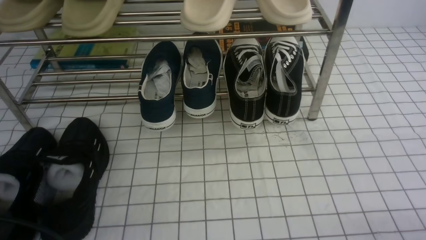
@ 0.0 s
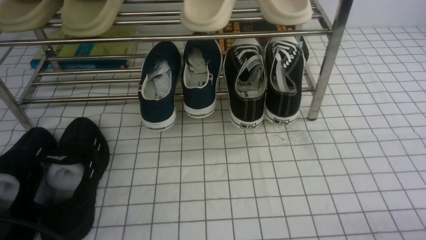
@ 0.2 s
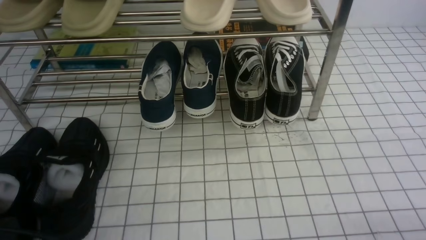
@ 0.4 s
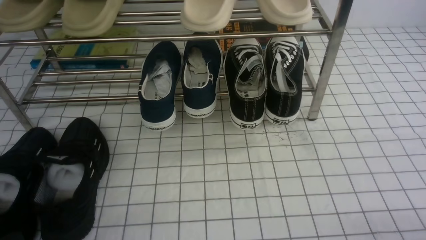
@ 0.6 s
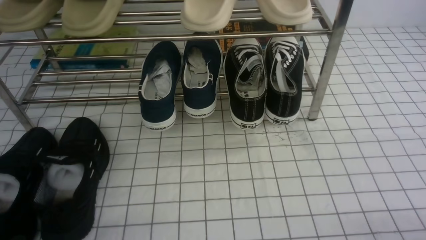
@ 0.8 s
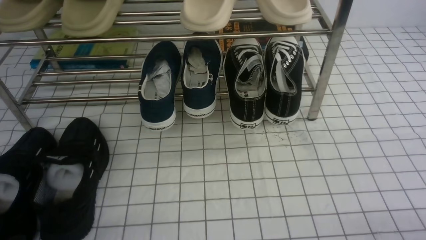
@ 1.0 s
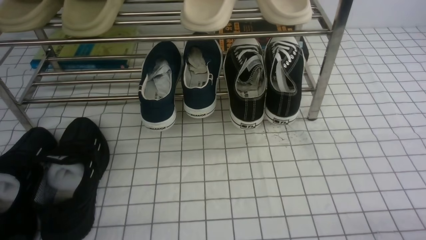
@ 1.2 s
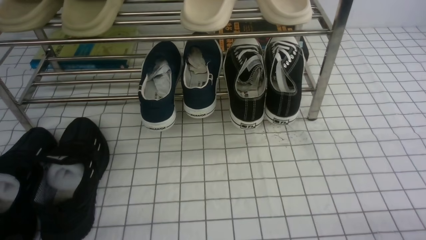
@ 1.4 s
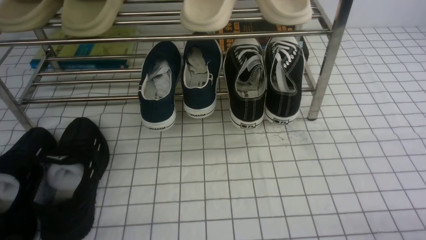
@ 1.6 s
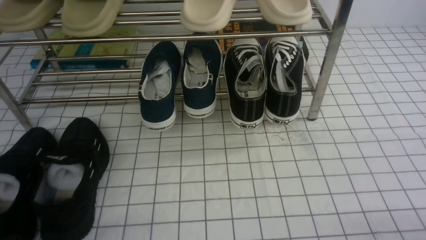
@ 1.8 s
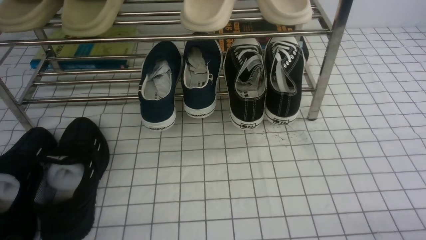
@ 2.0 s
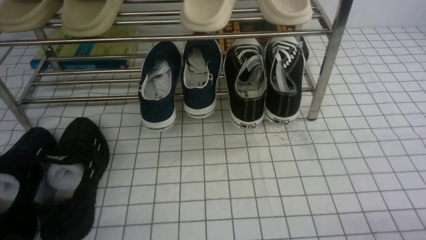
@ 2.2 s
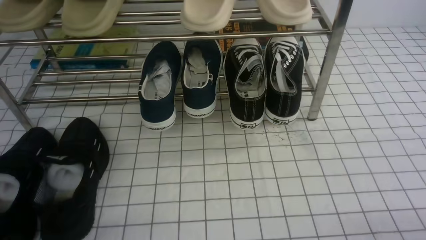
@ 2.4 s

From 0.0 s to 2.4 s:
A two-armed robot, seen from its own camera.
From 1.2 s to 2.4 s: Both grippers stay about where they are.

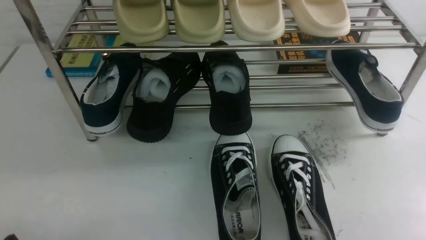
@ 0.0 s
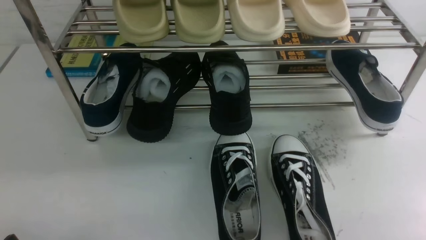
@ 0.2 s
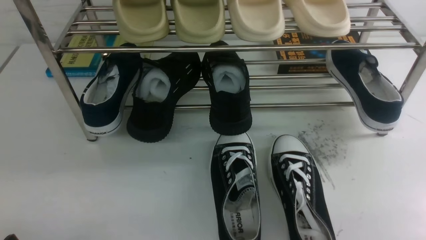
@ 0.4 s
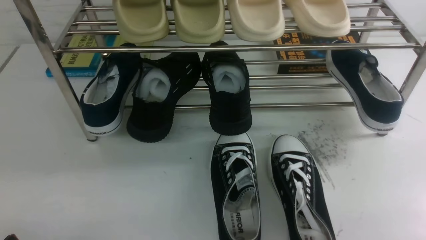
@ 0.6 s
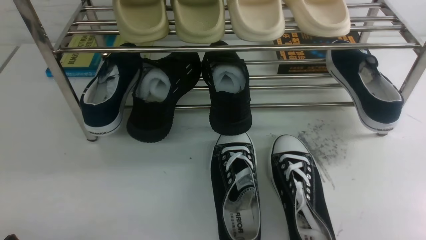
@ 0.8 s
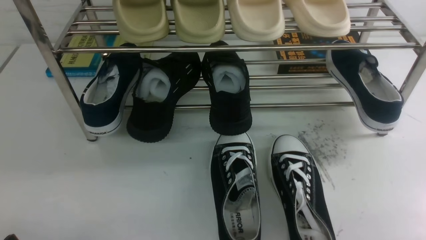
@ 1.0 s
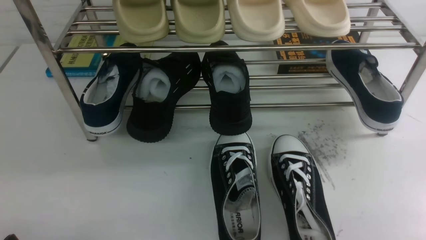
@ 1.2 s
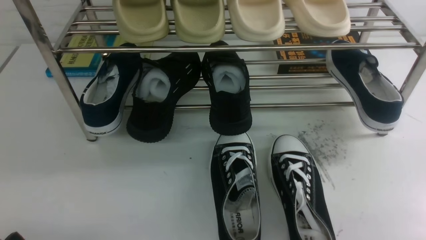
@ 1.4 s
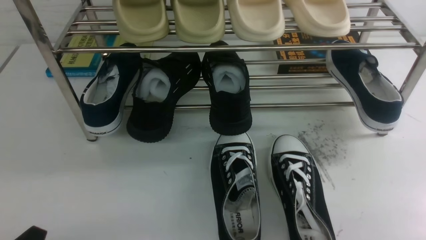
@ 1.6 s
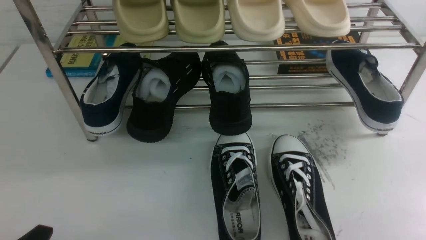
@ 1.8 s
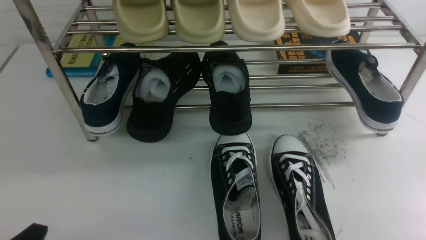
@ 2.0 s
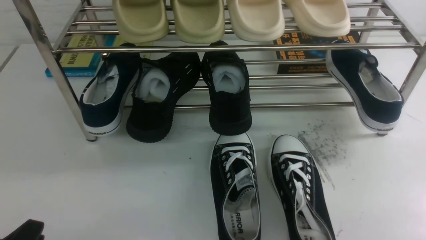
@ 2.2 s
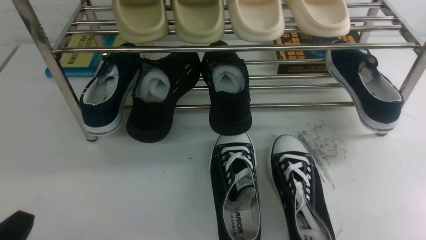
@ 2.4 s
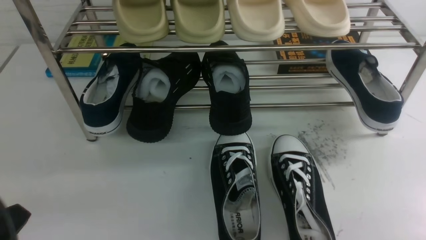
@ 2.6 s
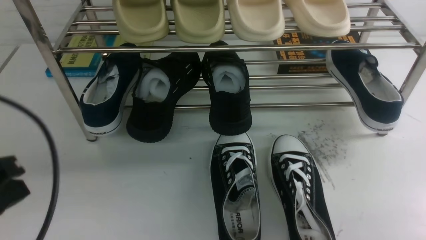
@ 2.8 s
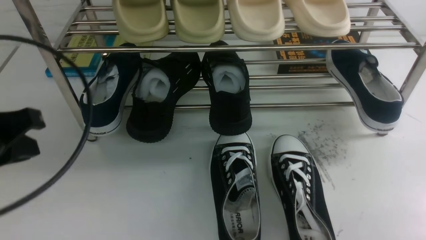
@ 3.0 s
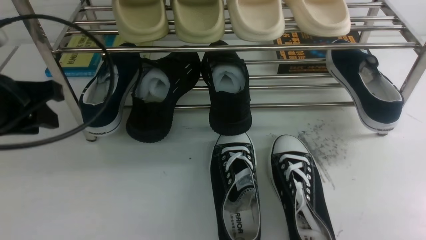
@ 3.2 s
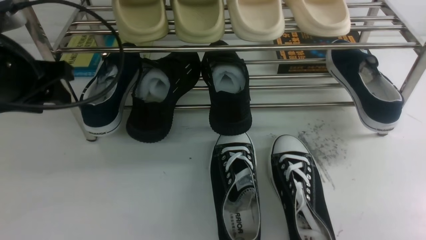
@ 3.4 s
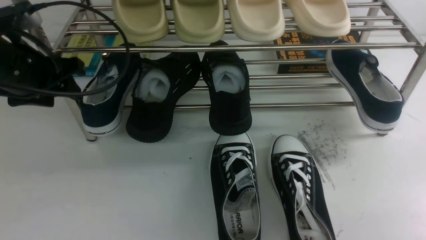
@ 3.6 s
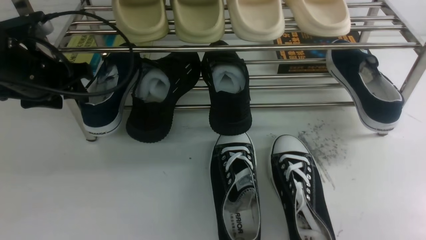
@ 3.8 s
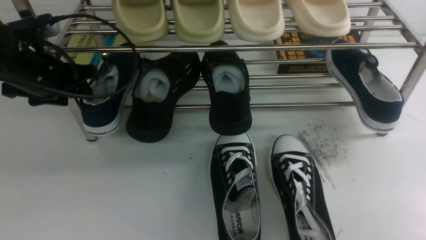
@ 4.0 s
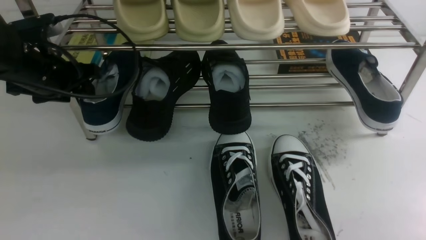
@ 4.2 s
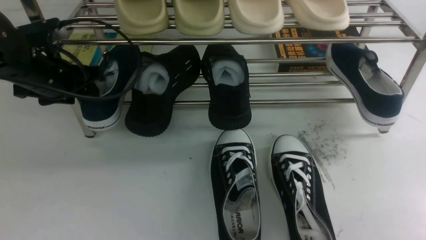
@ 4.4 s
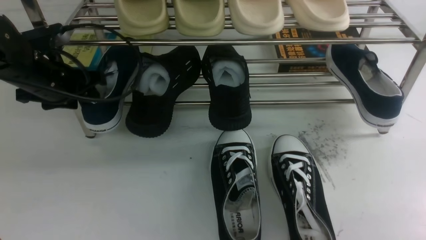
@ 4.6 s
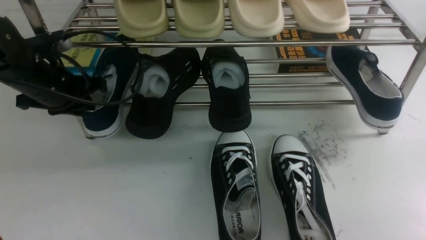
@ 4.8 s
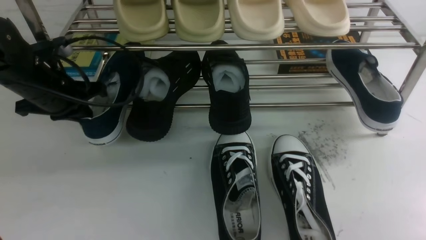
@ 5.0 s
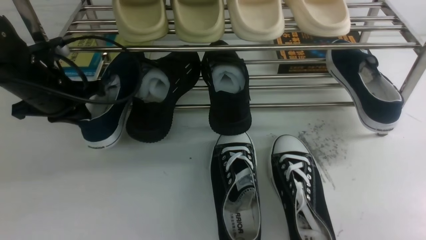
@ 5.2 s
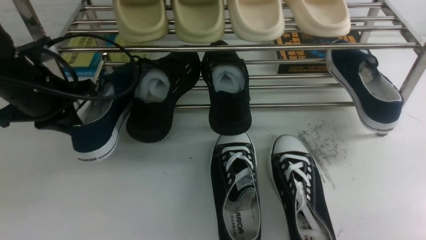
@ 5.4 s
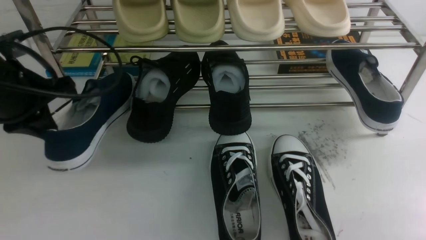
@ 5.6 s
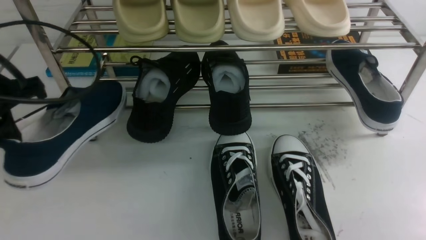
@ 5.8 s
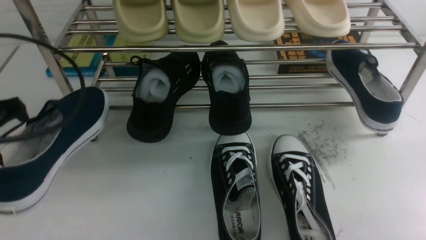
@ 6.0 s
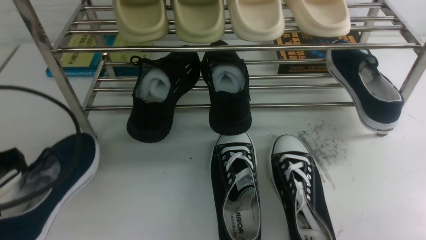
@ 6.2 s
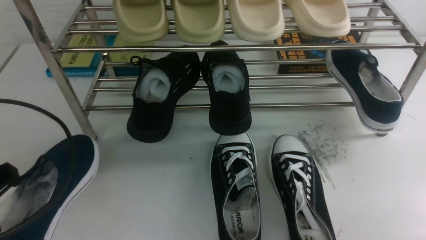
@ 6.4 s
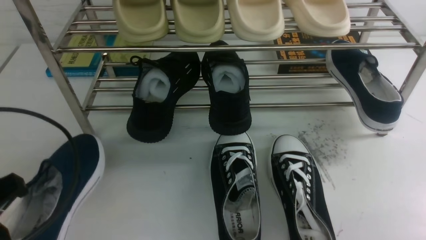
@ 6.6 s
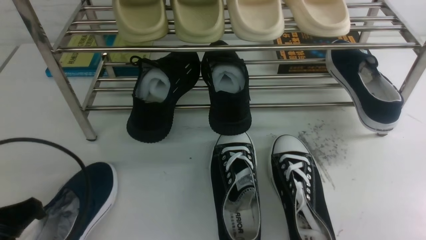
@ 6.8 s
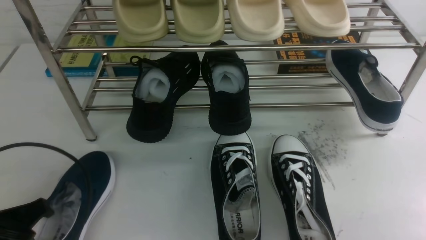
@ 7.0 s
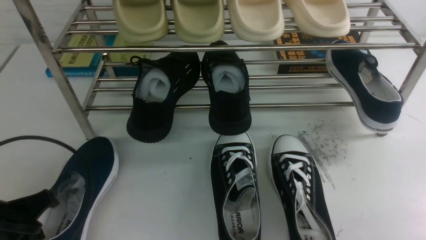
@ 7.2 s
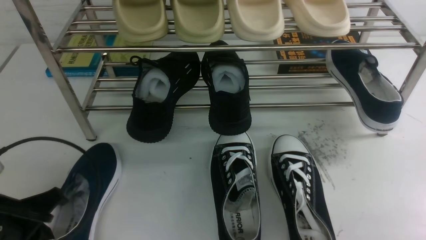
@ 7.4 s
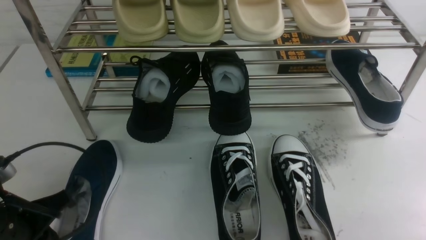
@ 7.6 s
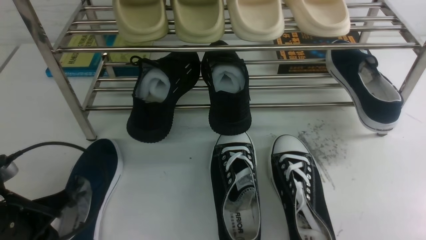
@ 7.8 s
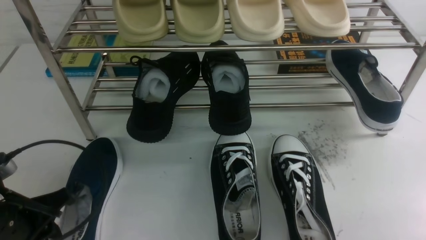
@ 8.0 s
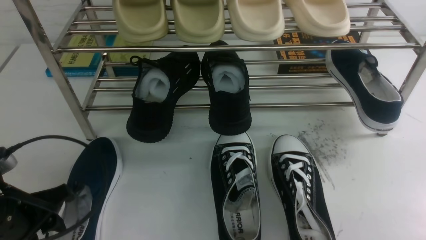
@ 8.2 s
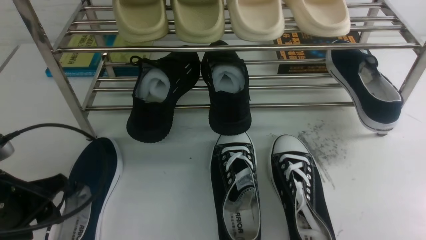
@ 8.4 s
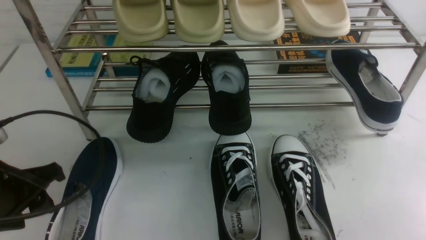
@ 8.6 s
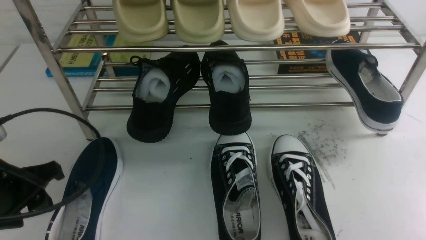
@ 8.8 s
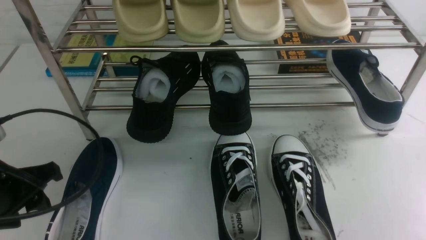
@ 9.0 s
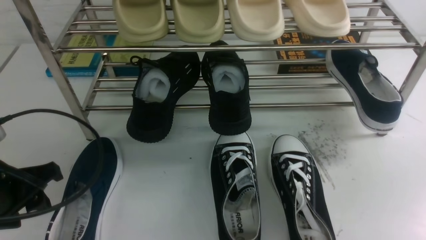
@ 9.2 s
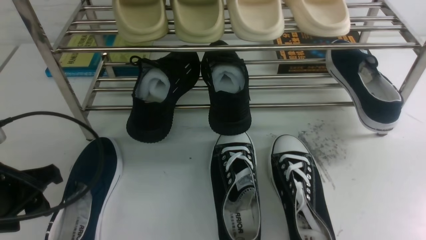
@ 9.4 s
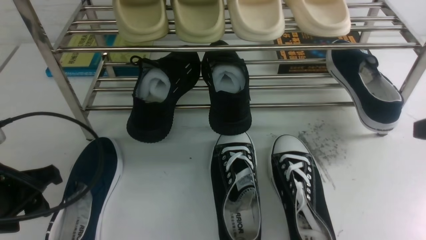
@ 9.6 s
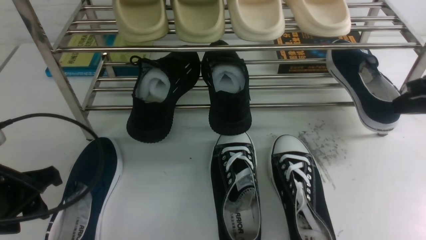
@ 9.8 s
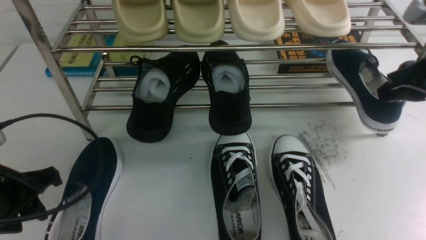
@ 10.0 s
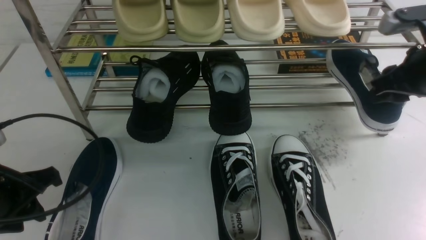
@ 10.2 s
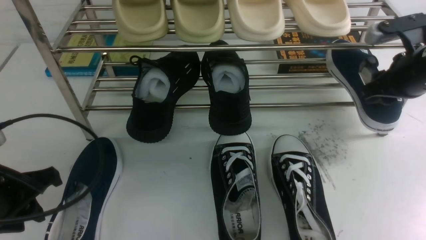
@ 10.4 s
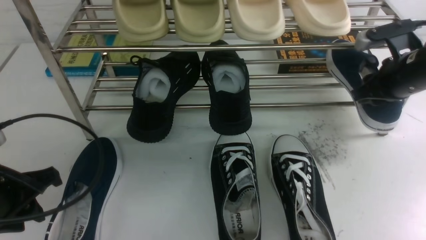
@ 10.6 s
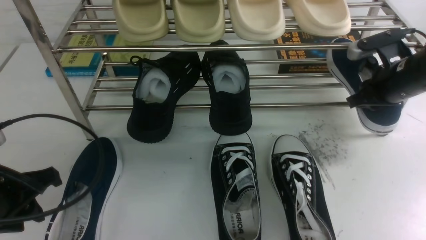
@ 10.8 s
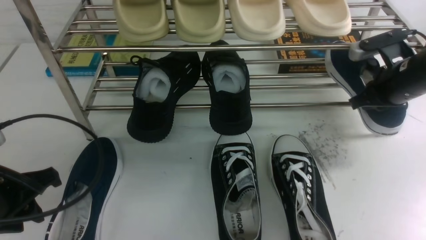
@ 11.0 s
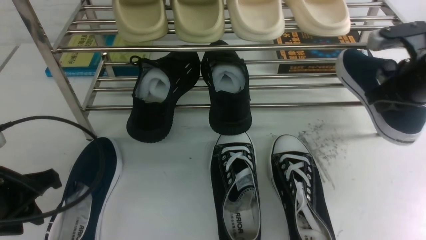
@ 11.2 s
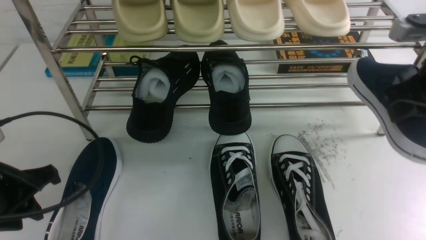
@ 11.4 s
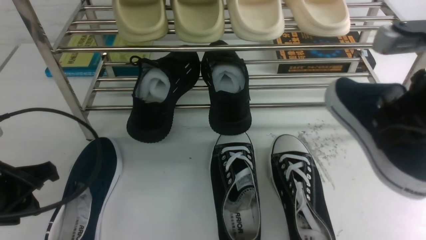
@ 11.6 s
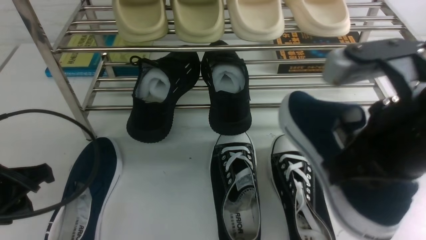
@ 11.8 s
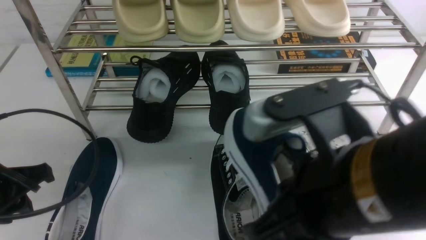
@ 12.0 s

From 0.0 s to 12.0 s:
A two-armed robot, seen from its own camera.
Step, from 0.0 s to 5.4 s: use the left arm to clamp a shoe on the left side of the shoe rack.
Step, from 5.6 s to 8.6 s: Use your left arm to remove the clamped shoe from the shoe rack and put it down.
Step, from 8.8 s to 11.2 s: use the right arm to clamp a shoe on the right side of the shoe rack.
From 1.6 s to 3.0 s: The left gripper shifts roughly 20 cm upward and forward.
From 3.0 s to 4.4 s: The left gripper is displaced forward by approximately 20 cm, and opens up.
From 4.4 s to 6.0 s: The left gripper goes roughly 20 cm backward and upward, and closes up.
From 6.0 s to 7.6 s: The left gripper shifts about 15 cm downward.
From 7.6 s to 9.0 s: The left gripper opens up.
From 9.0 s to 10.4 s: The right gripper heads forward, covering some 30 cm, and closes, then opens again.
From 10.4 s to 12.0 s: The right gripper goes some 30 cm backward and to the left, and closes up.

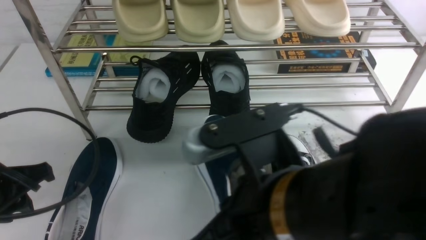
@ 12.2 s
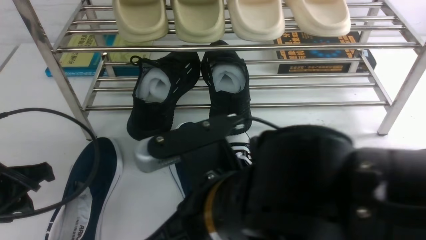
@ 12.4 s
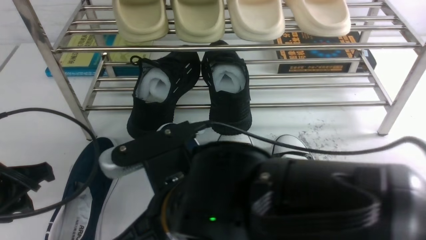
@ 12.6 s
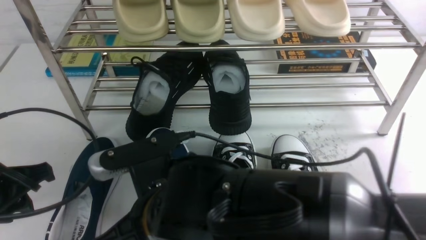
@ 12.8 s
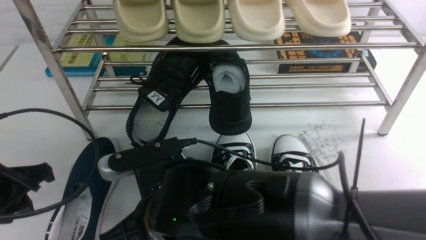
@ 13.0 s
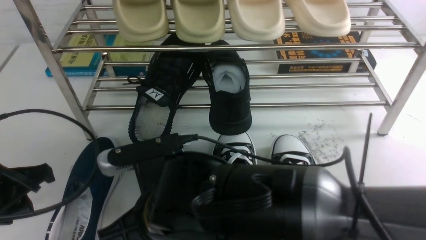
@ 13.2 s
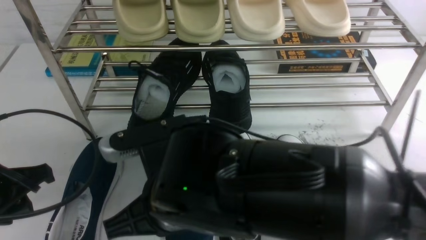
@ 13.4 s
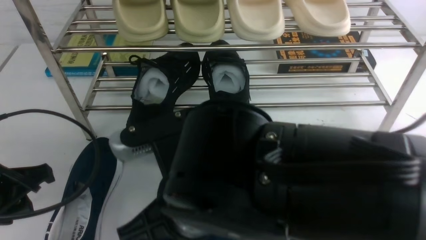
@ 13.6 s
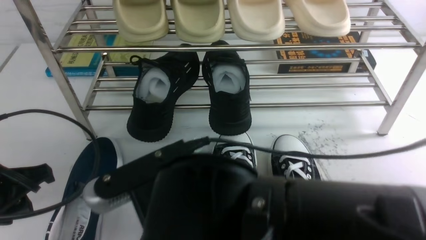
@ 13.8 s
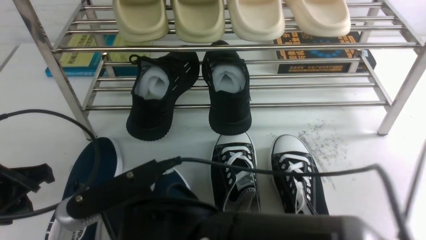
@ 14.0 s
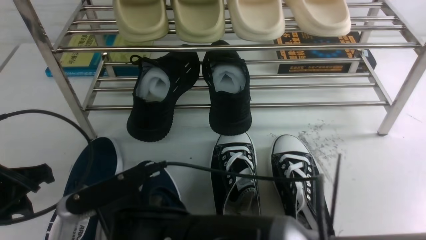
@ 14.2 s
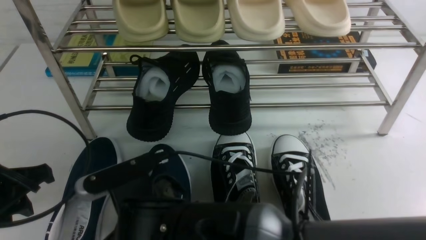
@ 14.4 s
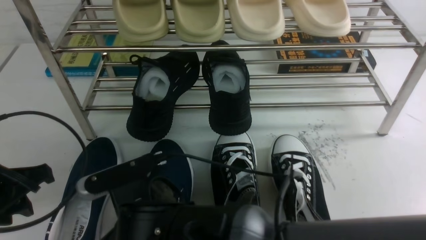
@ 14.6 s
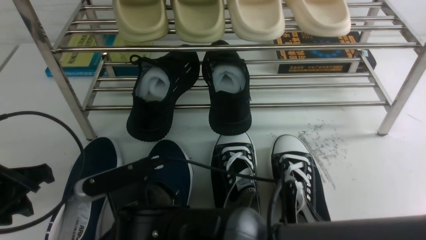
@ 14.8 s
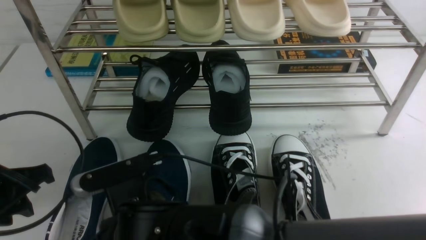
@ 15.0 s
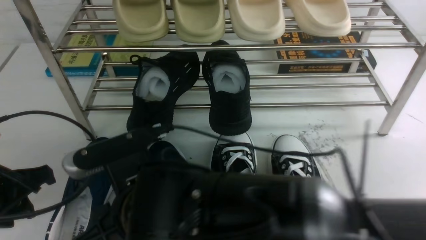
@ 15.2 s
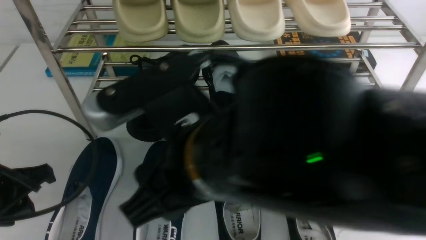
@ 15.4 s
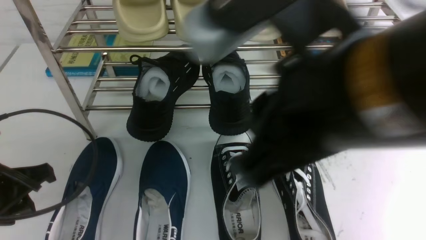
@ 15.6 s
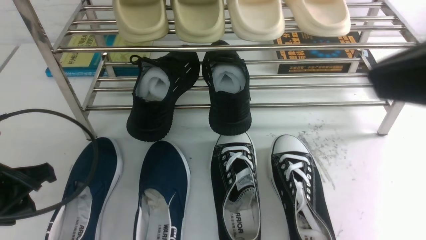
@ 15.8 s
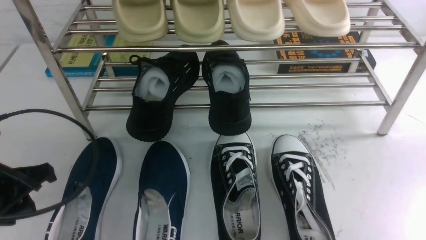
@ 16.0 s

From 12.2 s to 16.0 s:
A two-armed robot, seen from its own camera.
Step, from 12.2 s to 15.4 s: use the right arm to take out the clamped shoe from the shoe rack and put it down.
From 12.2 s to 13.4 s: The right gripper shifts some 10 cm to the left.
From 13.4 s to 14.8 s: The right gripper is displaced downward and to the left by some 10 cm, and opens.
From 14.8 s to 16.0 s: The right gripper travels to the right and upward by roughly 40 cm, and closes.
